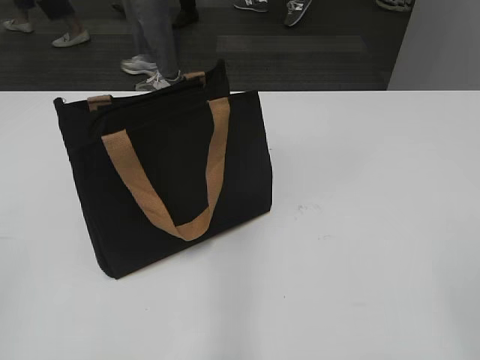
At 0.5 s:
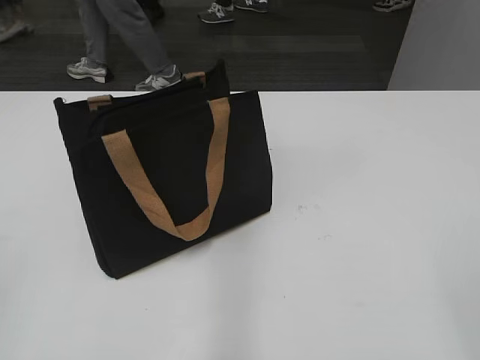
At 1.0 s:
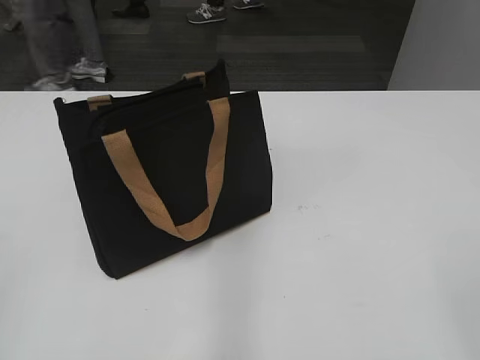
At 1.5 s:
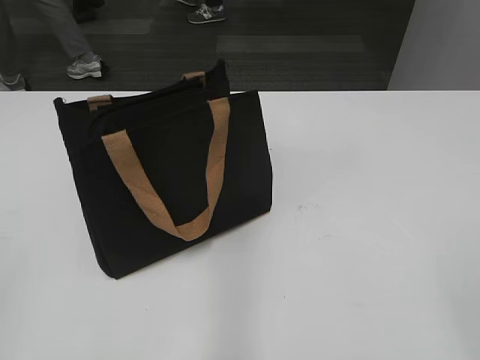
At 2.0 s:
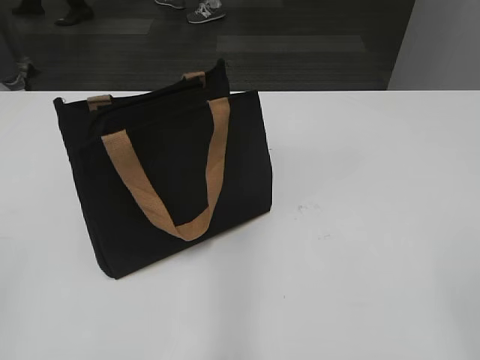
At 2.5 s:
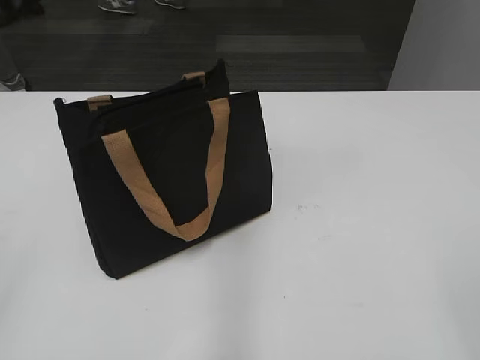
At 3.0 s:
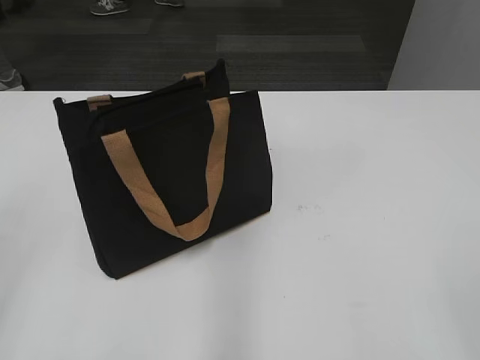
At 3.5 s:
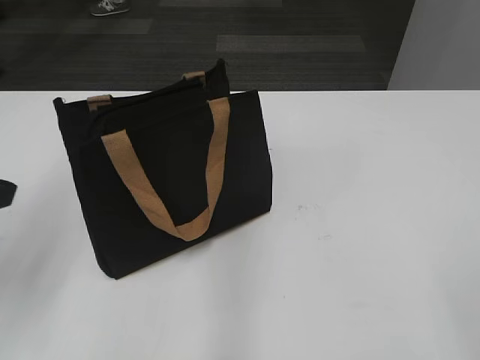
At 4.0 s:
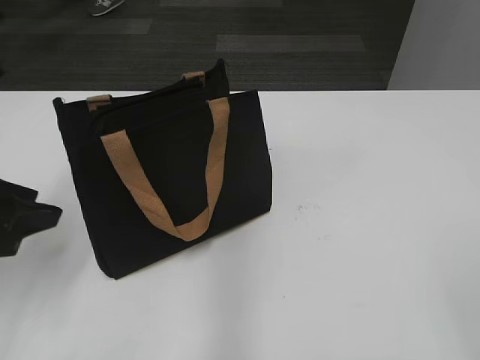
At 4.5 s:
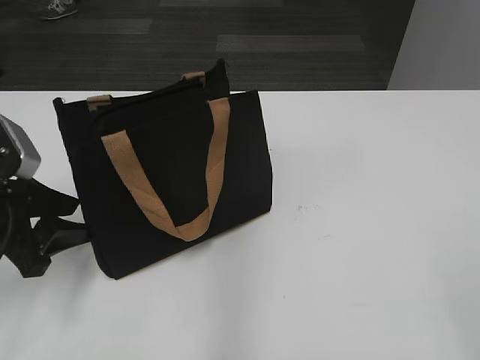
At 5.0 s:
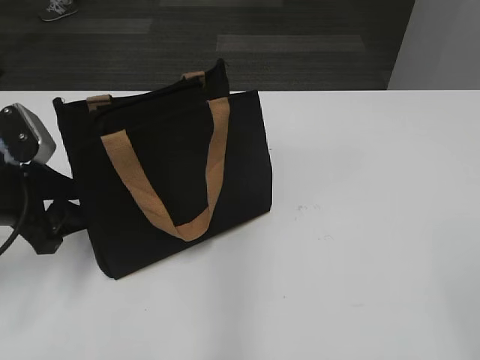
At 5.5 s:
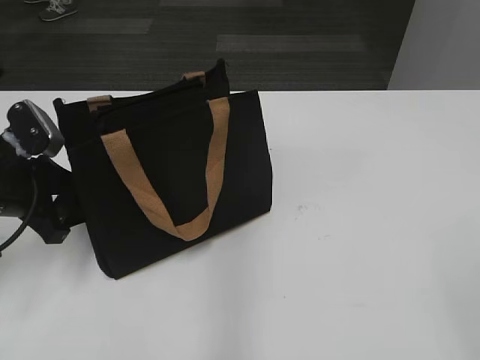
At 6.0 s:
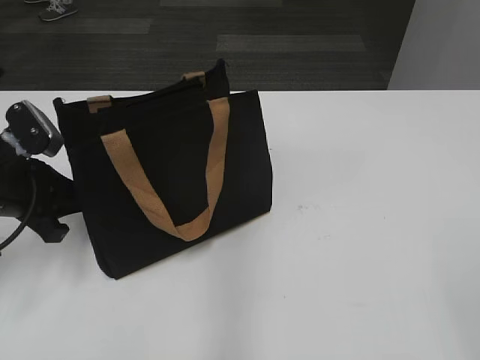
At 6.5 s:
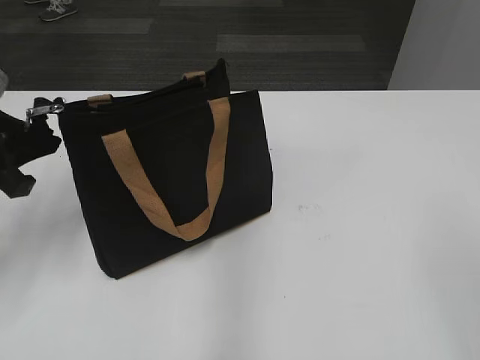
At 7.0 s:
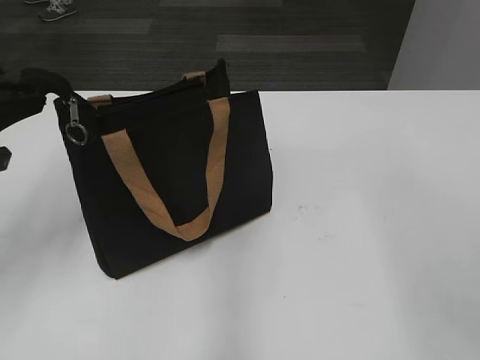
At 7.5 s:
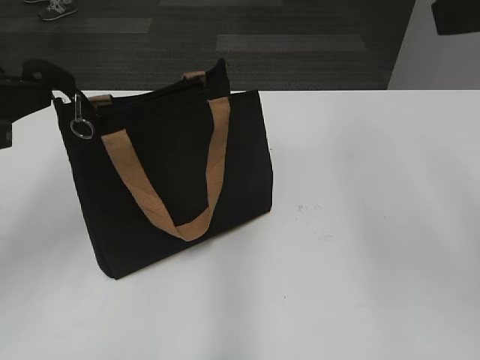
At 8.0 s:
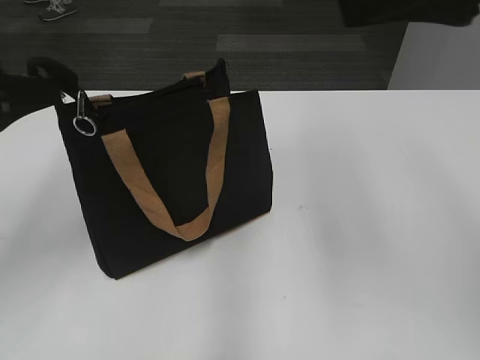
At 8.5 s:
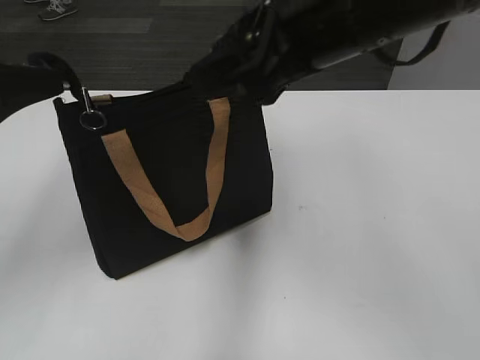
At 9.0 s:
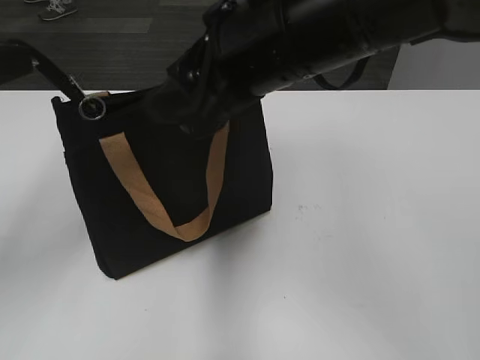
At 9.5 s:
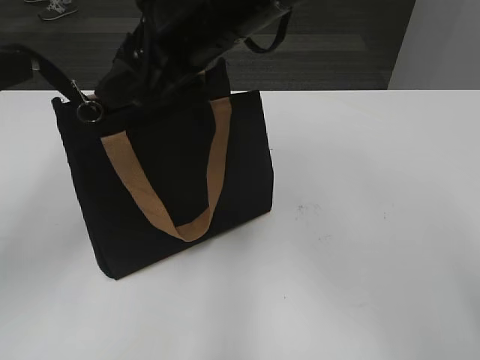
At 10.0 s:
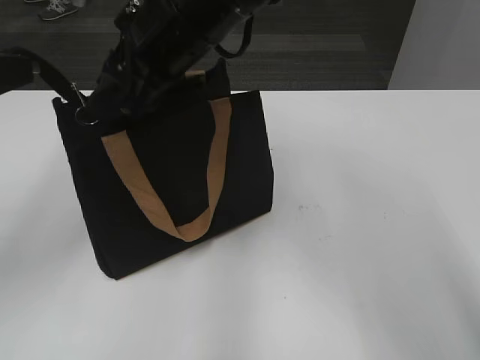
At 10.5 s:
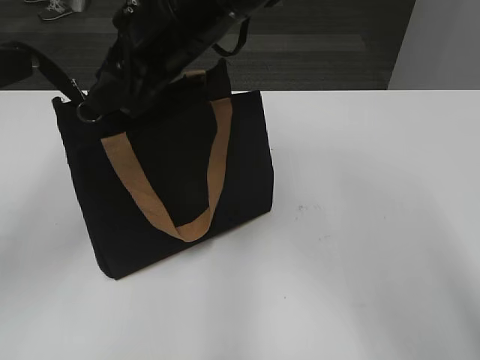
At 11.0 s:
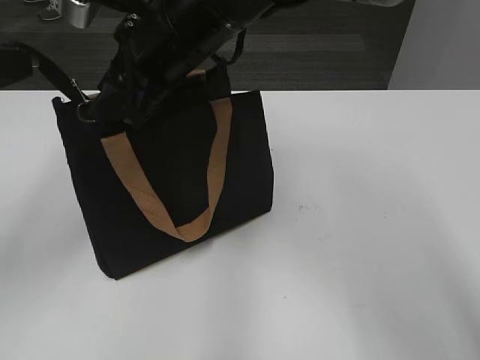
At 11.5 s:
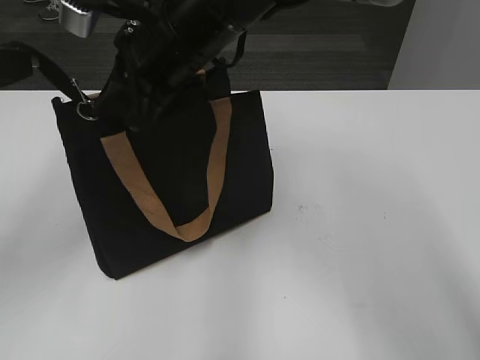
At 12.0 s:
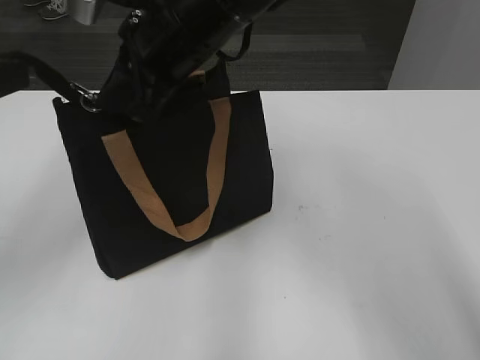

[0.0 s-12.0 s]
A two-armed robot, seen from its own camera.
2.0 to 4.0 s: The left gripper heads forward and downward, covering roughly 25 cm.
4.0 to 6.0 s: The left gripper heads forward and downward, covering approximately 10 cm, and closes its fingers.
6.0 to 8.0 s: The left gripper travels upward and backward by approximately 15 cm, while the right gripper moves forward and upward, approximately 25 cm.
8.0 to 10.0 s: The right gripper travels to the left, forward and downward by roughly 25 cm.

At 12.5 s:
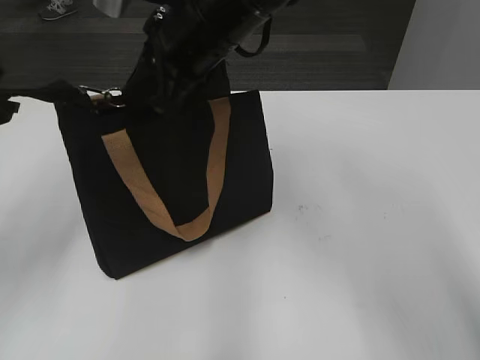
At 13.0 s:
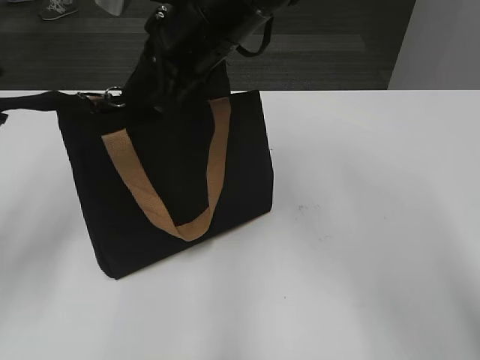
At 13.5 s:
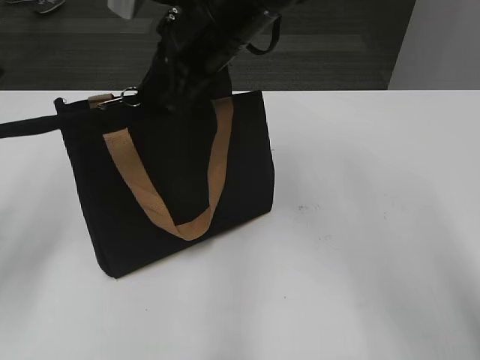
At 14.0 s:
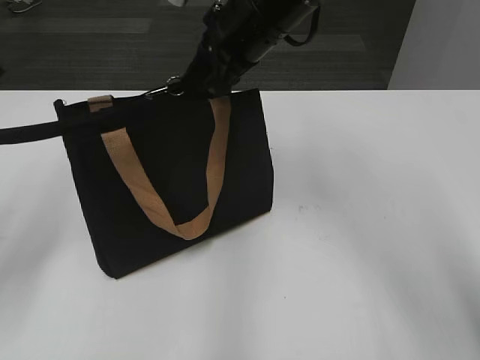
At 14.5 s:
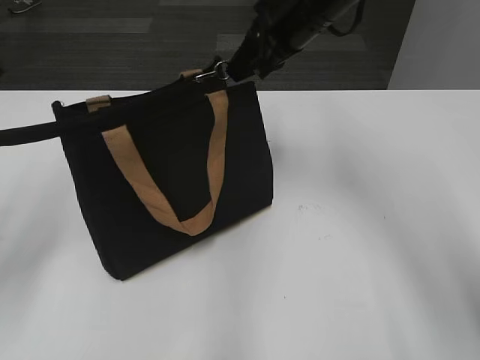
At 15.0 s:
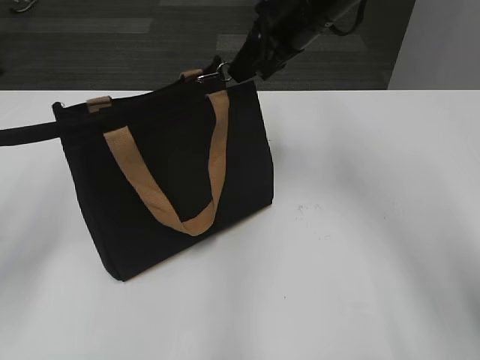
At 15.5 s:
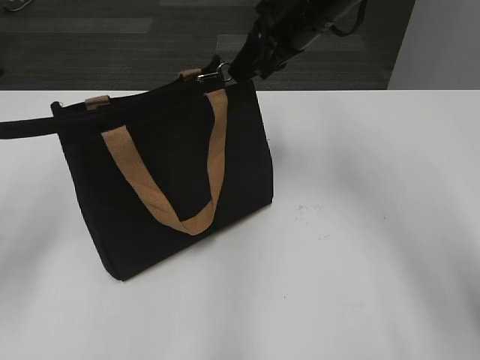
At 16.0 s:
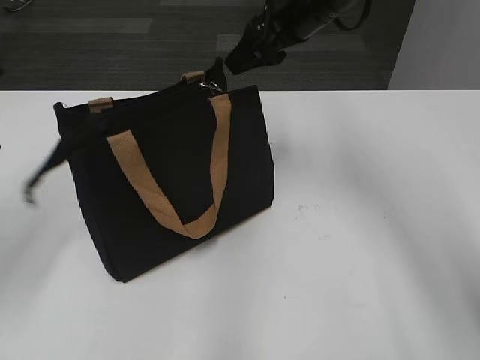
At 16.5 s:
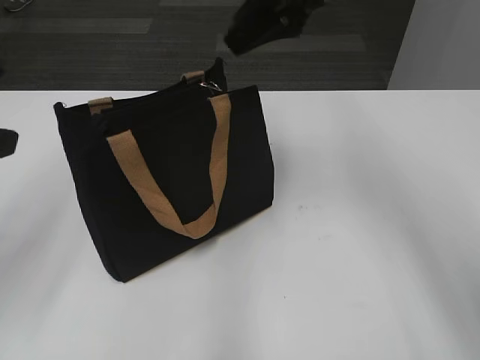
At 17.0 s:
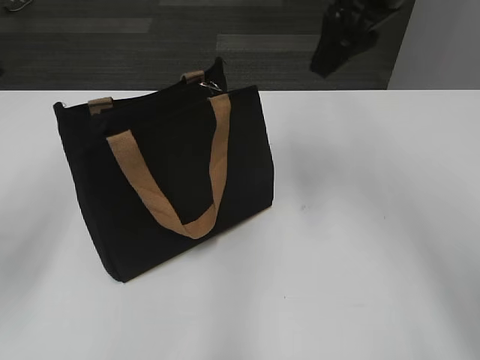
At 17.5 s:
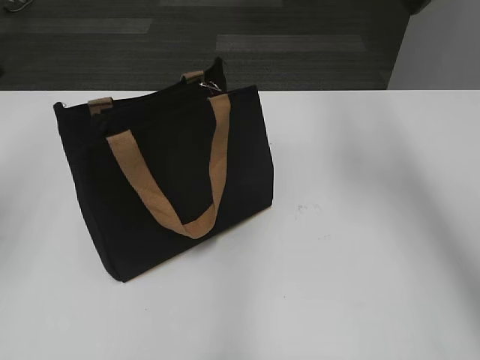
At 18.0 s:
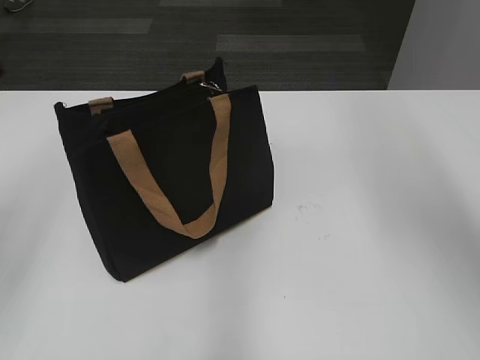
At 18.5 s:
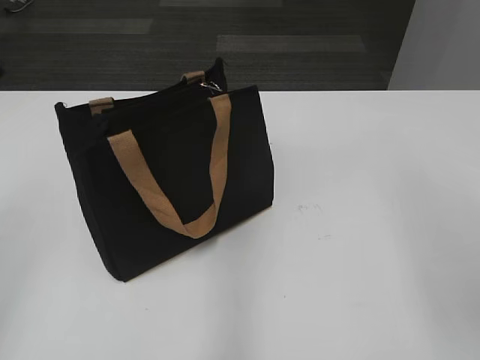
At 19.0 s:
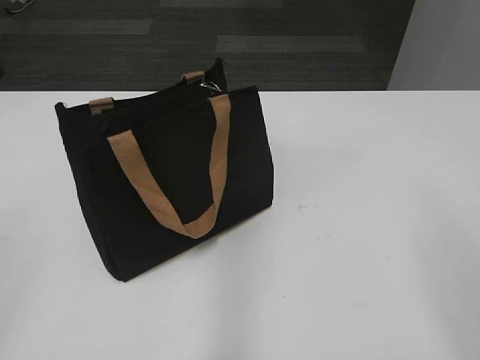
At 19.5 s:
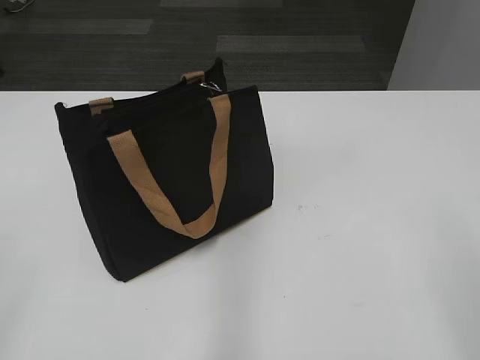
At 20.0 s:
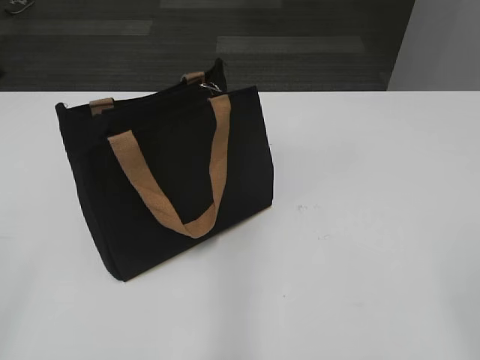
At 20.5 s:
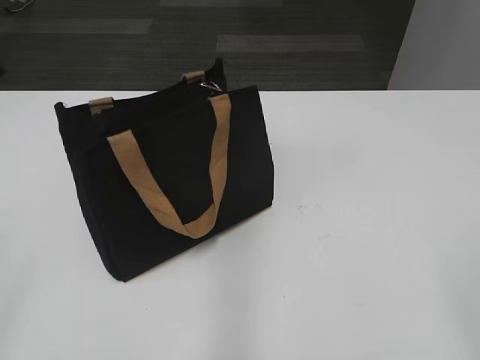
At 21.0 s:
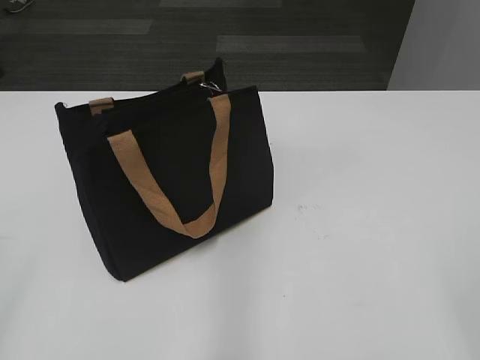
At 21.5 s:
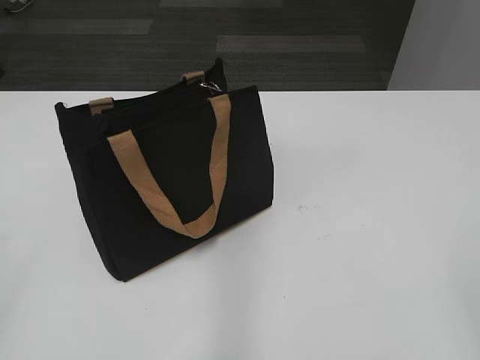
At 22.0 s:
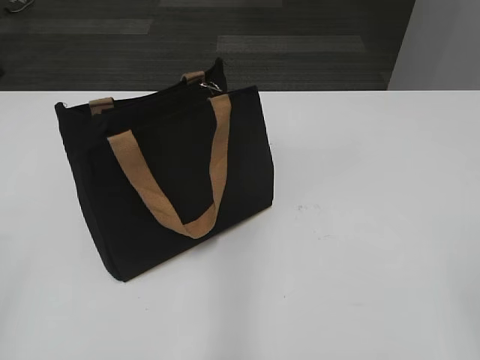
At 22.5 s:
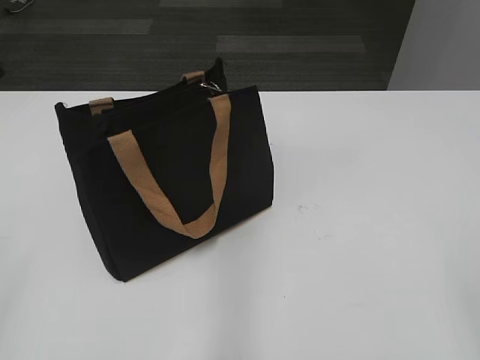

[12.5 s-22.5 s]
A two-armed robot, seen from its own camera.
Step, 12.5 to 15.5 s: Zip up the bag with your right hand.
12.5 to 14.5 s: The right gripper is displaced to the right and forward by some 10 cm.
14.5 to 16.5 s: The right gripper travels upward by some 5 cm, and opens up, while the left gripper opens.
16.5 to 18.5 s: The left gripper shifts some 10 cm backward, while the right gripper goes about 30 cm backward and to the right.
